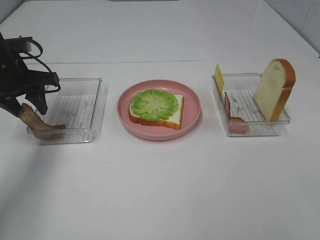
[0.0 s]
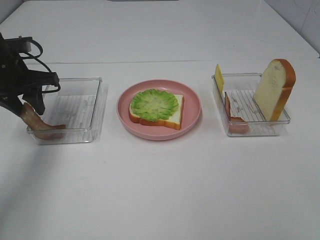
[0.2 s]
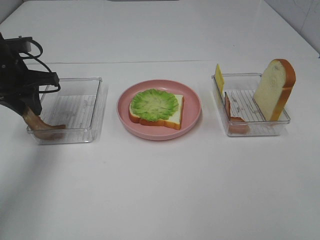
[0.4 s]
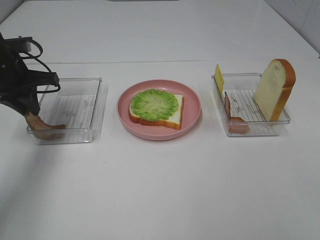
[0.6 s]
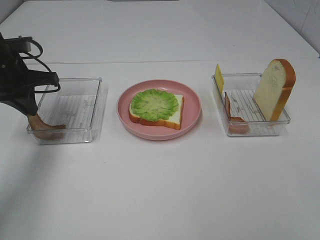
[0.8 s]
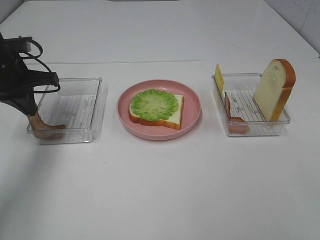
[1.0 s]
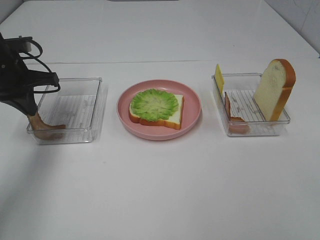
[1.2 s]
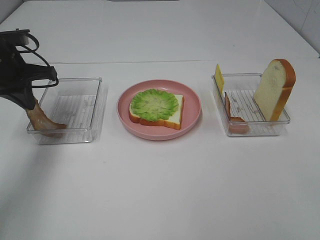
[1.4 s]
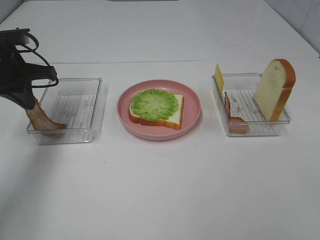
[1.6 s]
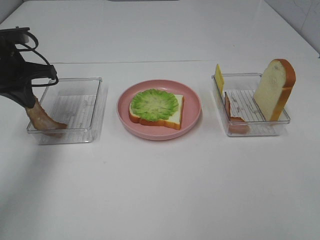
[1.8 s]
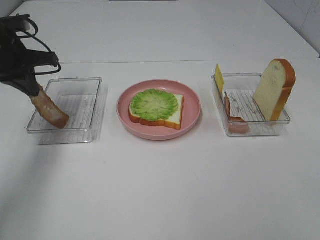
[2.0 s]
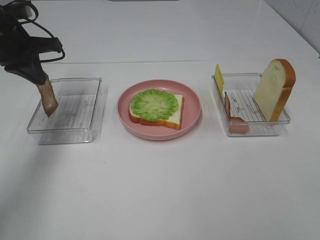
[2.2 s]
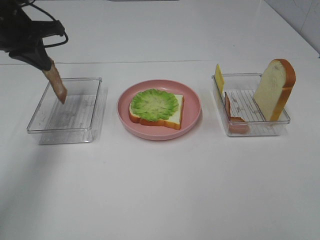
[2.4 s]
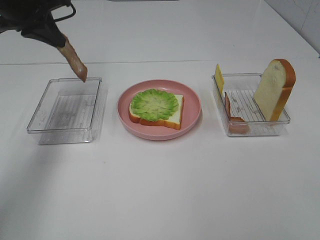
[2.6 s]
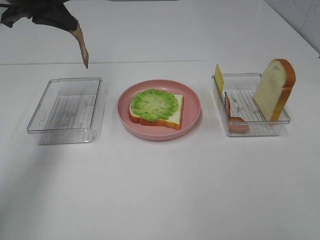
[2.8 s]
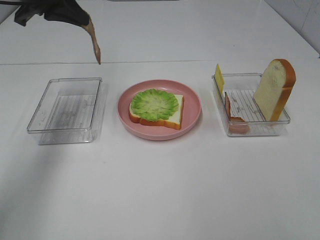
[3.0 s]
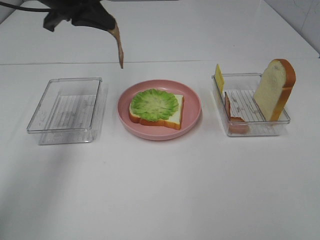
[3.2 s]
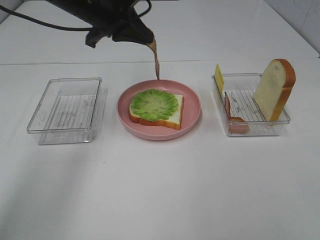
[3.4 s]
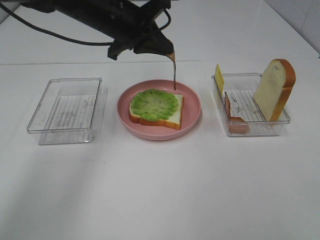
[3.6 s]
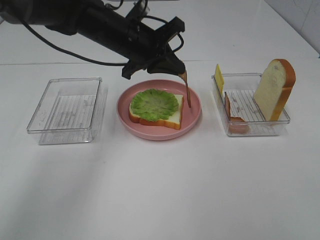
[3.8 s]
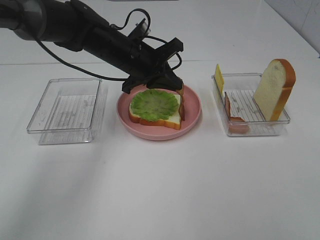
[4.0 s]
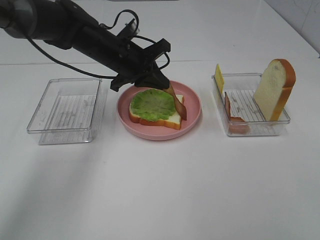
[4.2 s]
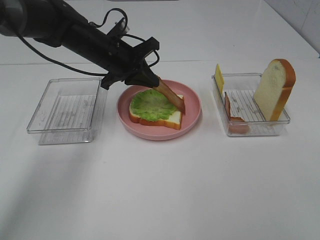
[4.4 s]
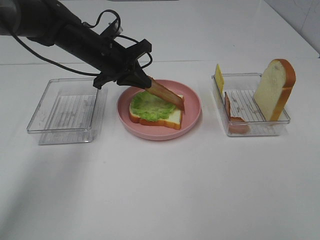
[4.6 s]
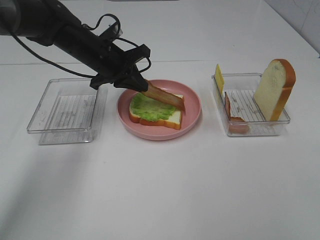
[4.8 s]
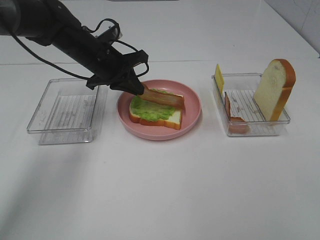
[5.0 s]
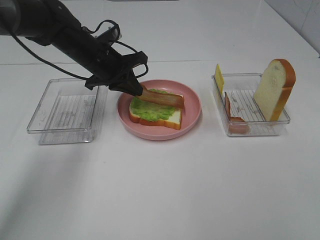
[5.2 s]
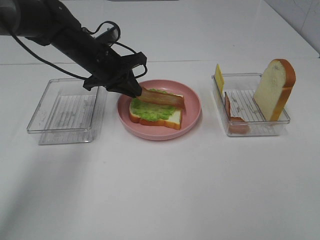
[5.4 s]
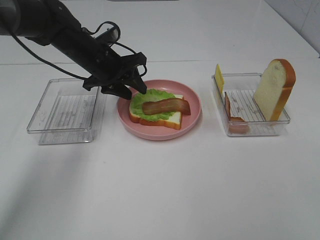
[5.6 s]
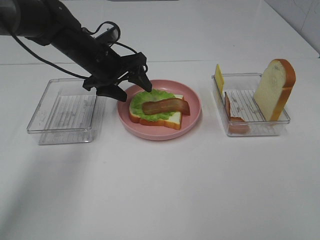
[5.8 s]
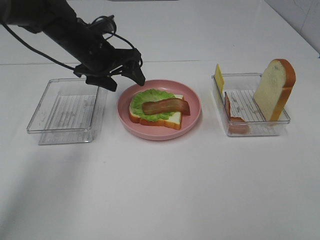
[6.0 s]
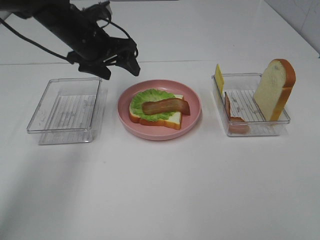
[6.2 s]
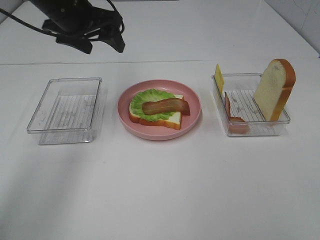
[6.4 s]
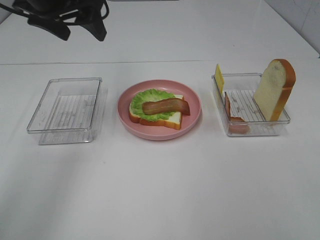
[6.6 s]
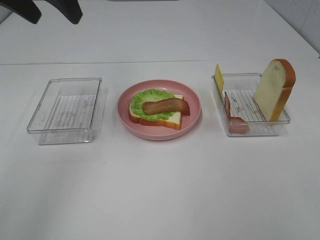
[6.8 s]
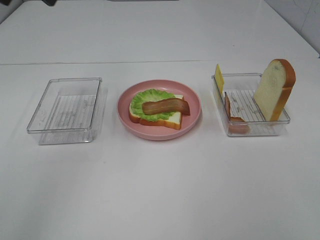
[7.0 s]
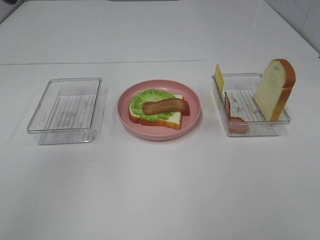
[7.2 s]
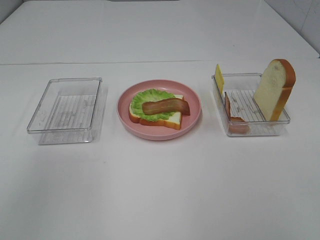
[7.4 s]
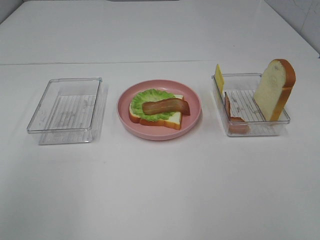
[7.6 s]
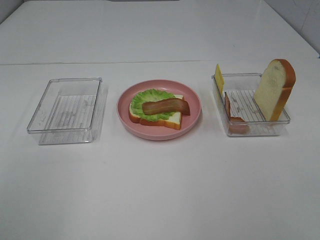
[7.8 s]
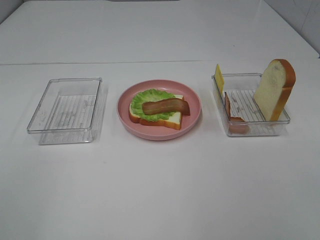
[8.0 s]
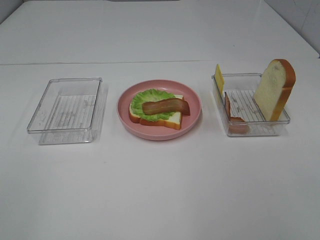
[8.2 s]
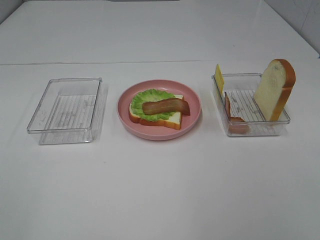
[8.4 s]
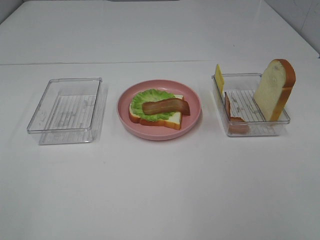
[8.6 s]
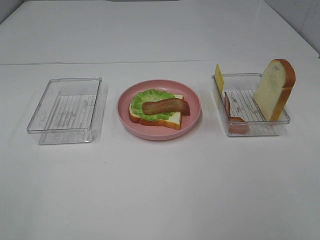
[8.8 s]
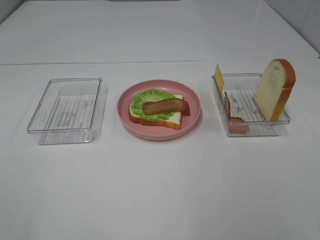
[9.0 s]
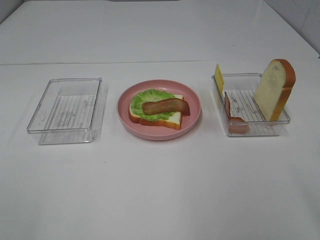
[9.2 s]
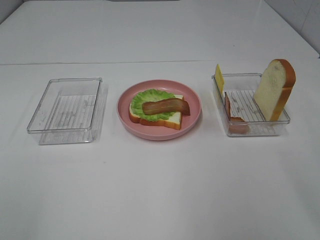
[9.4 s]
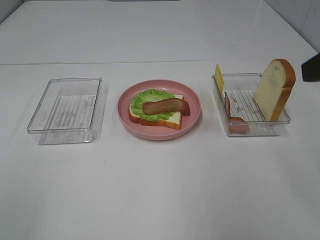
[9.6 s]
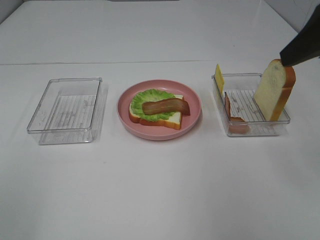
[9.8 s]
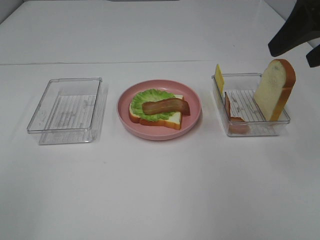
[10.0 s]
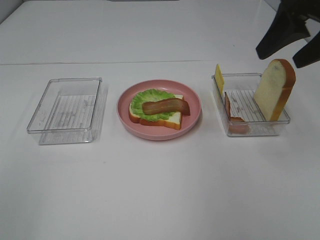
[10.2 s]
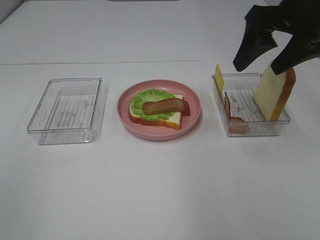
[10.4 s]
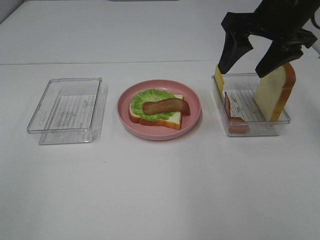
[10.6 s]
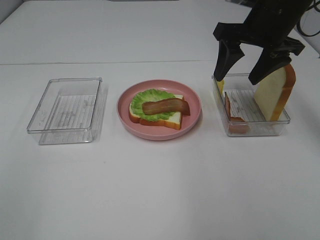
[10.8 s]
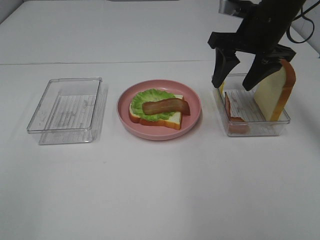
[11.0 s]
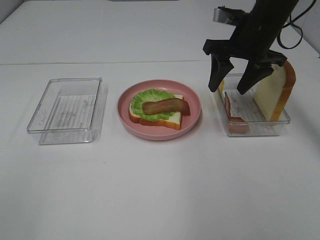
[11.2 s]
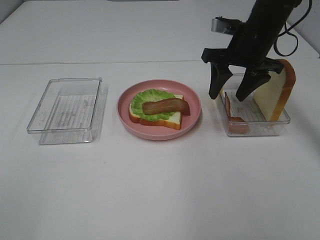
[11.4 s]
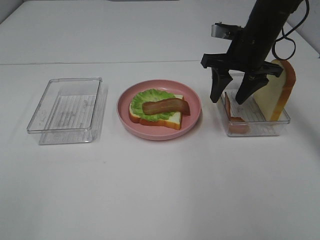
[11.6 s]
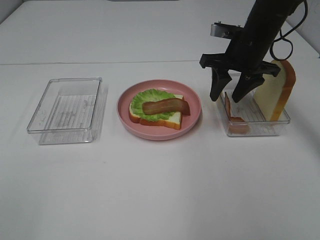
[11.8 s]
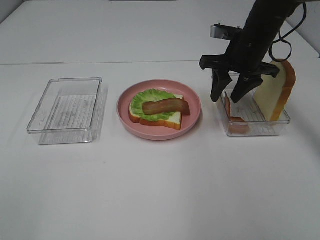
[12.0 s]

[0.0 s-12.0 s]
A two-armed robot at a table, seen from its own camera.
Task of the whole recording: Make sandwiches.
Step, 1.0 to 6.0 s: Left hand:place bacon on lettuce slice.
0.0 to 1.6 s: The left gripper closes up.
1.6 to 3.0 s: The left gripper travels upward and to the right by about 10 cm.
3.0 to 4.4 s: The left gripper moves downward and to the right, approximately 15 cm.
4.4 to 6.0 s: The left gripper opens.
6.0 to 7.6 s: The left gripper shifts about 40 cm backward, upward and to the left.
9.0 to 10.4 s: The right gripper heads forward, covering about 30 cm.
10.4 to 12.0 s: The right gripper shifts roughly 15 cm downward and forward.

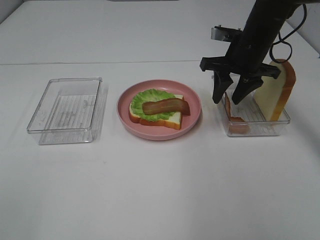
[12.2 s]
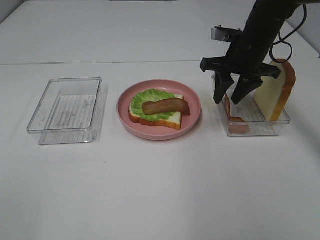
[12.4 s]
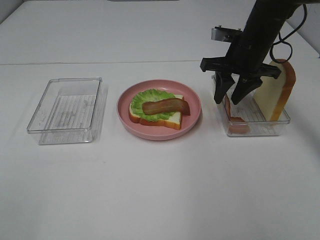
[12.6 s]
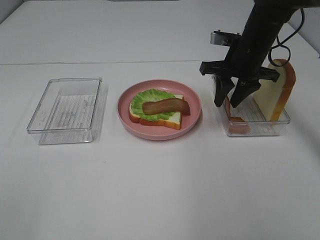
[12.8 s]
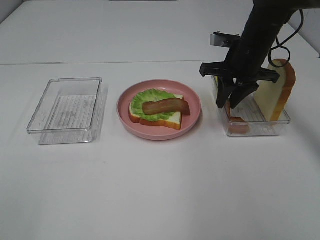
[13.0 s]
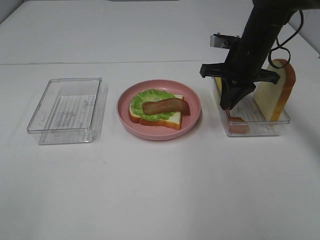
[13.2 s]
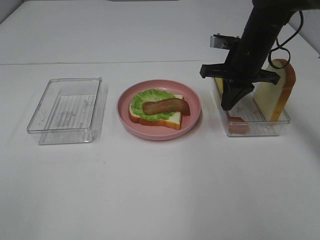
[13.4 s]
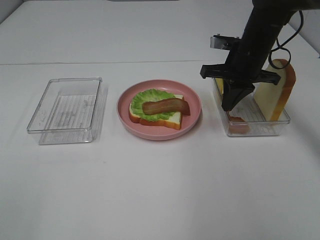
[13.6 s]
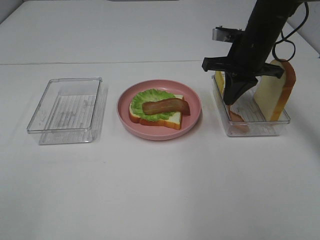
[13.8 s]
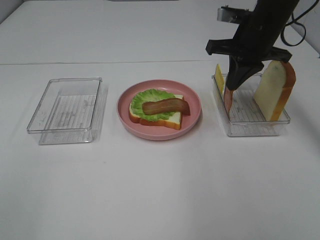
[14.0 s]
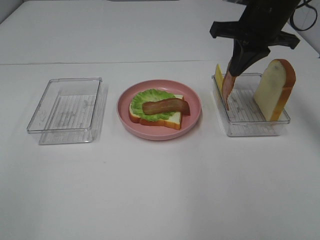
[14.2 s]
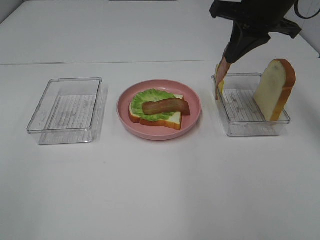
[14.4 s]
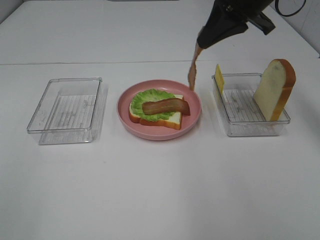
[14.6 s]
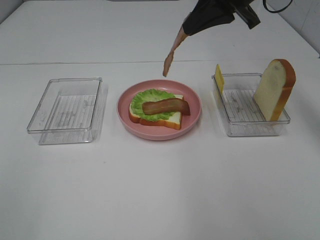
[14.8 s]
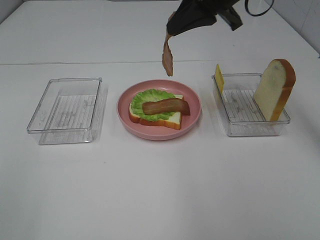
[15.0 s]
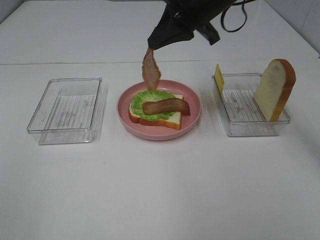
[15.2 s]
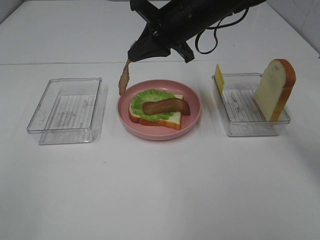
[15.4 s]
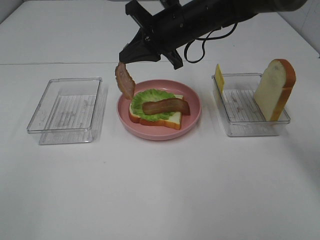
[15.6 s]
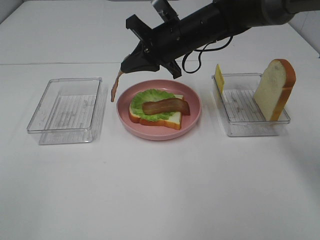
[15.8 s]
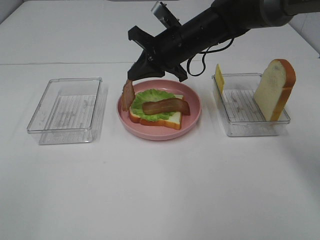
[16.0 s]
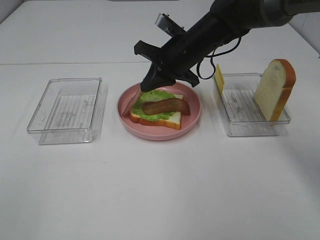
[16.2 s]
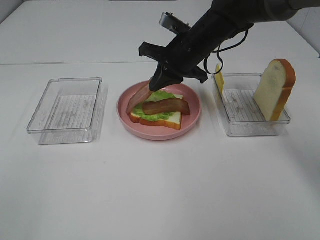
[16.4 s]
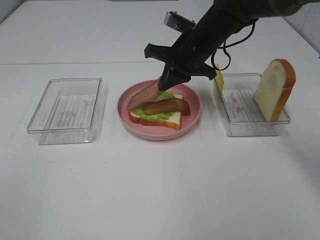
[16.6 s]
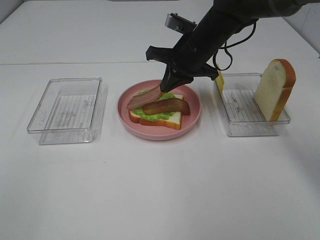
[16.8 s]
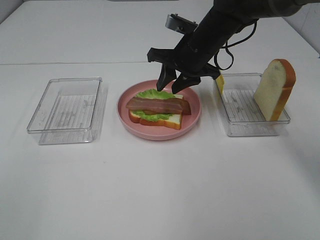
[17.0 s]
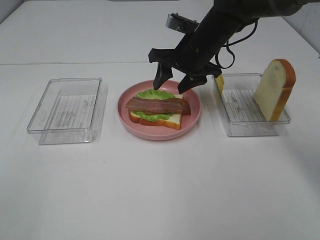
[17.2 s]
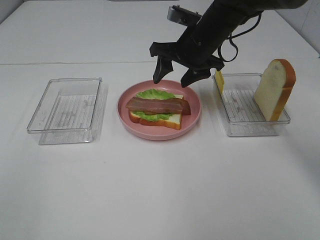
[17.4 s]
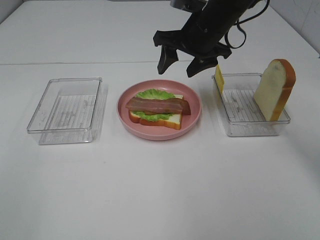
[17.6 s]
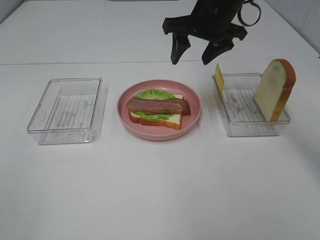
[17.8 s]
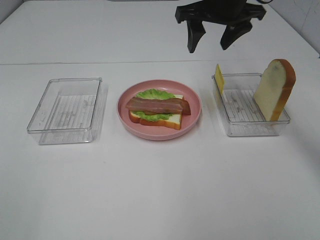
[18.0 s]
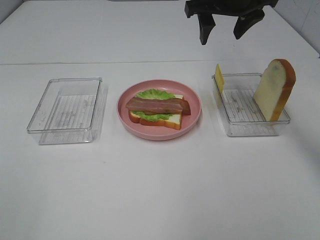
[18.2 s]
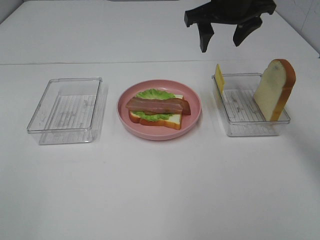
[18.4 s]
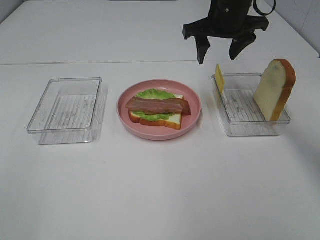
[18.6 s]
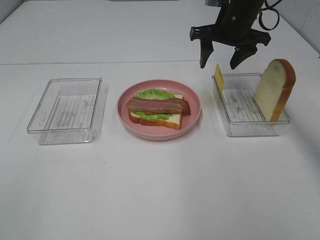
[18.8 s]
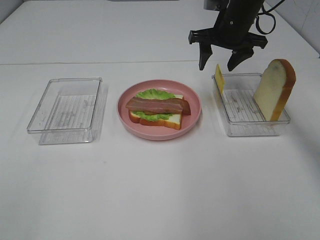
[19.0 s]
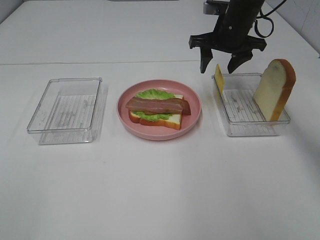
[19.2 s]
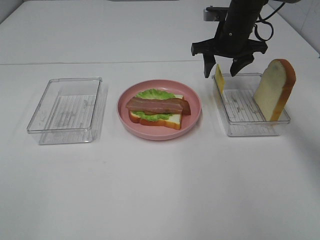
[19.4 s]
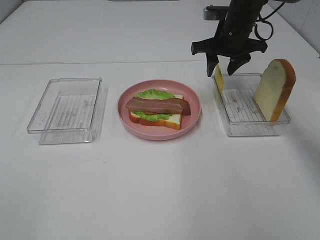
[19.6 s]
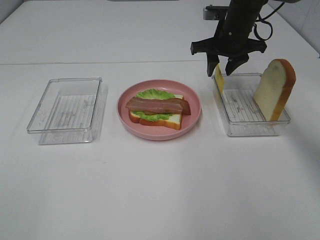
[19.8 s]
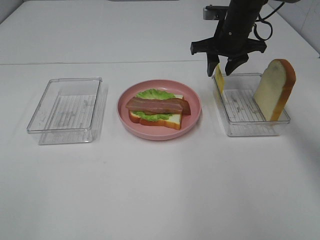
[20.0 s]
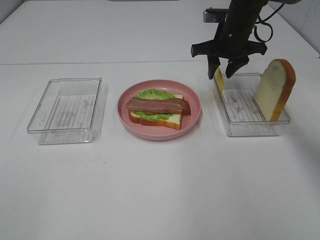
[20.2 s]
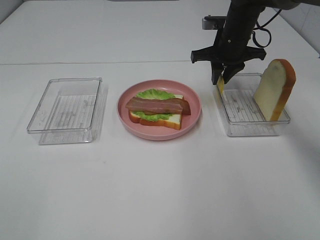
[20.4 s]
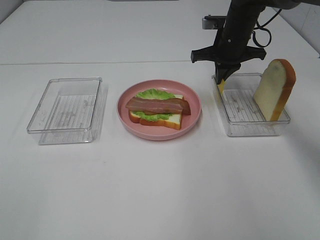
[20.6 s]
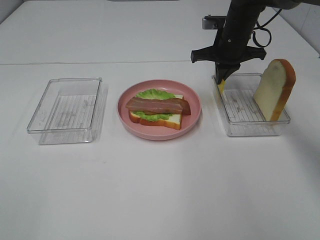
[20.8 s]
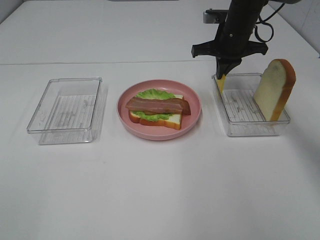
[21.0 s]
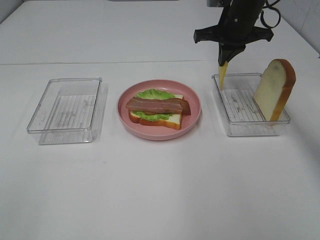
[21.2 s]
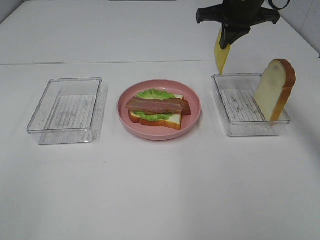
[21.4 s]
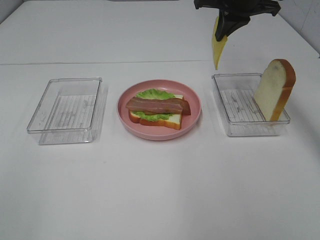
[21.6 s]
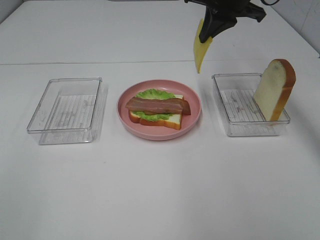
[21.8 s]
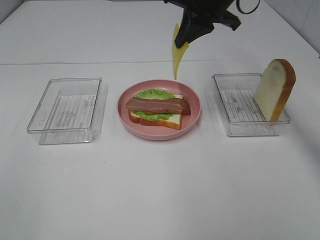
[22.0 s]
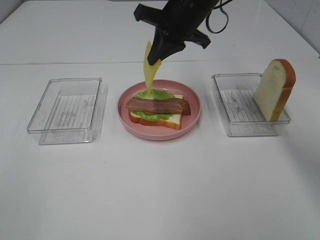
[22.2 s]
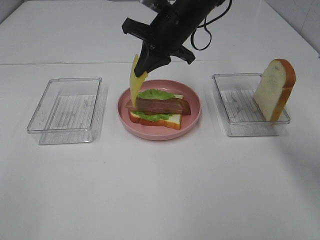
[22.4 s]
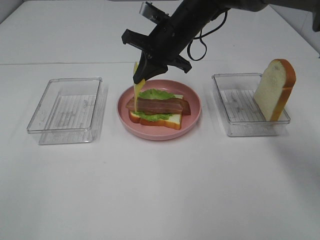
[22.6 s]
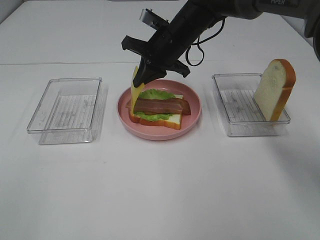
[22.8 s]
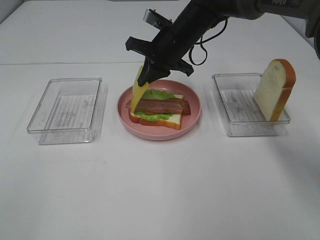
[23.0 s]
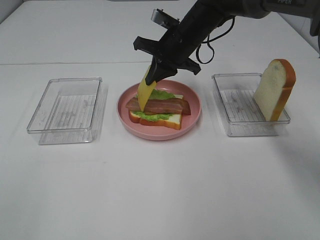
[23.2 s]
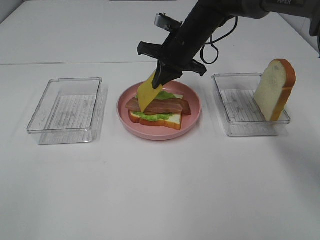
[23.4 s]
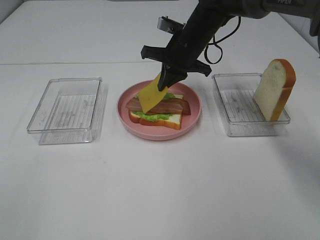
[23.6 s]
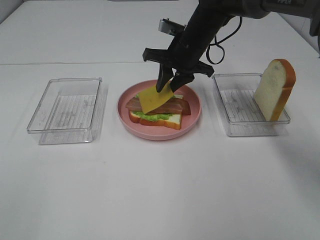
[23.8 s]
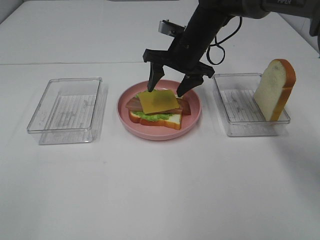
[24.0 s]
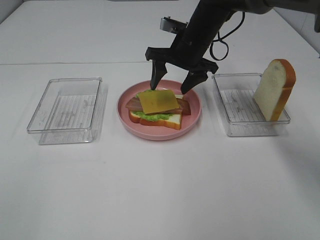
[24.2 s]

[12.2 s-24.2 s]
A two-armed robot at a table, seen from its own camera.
Task of the whole recording: Make sandwiches.
Step, 13.4 to 17.2 s: Right hand:place bacon on bacon.
Step, 17.4 to 20.8 s: Right hand:grab the cheese slice.
12.2 to 13.8 s: The right gripper closes its fingers.
13.8 to 15.2 s: The right gripper travels to the left and upward by roughly 10 cm.
15.2 to 16.6 s: The right gripper is displaced downward by about 10 cm.
16.6 to 18.2 s: The right gripper heads upward, covering approximately 10 cm, and opens.
18.2 to 19.8 s: The right gripper travels downward and forward by roughly 10 cm.
19.8 to 21.2 s: The right gripper closes.
21.2 to 22.6 s: The right gripper heads to the left, covering roughly 10 cm.
22.6 to 24.2 s: The right gripper opens up.
